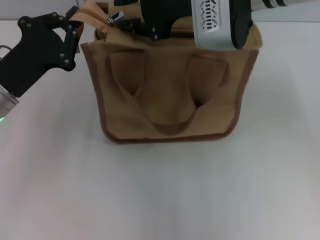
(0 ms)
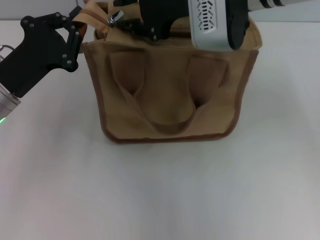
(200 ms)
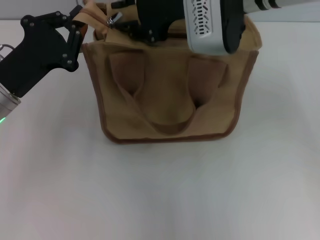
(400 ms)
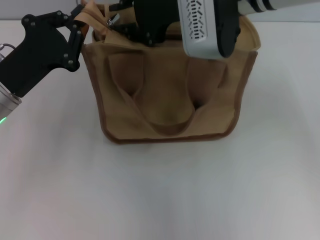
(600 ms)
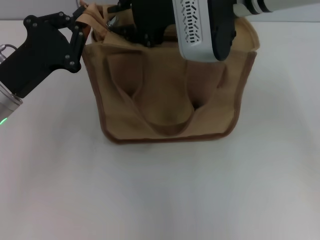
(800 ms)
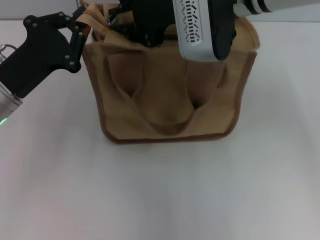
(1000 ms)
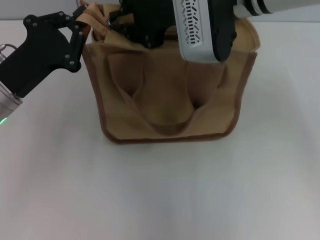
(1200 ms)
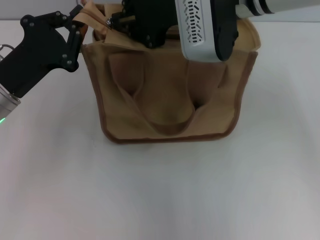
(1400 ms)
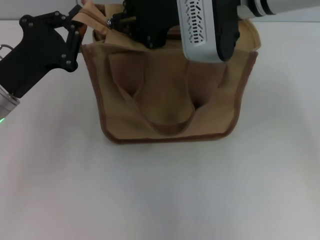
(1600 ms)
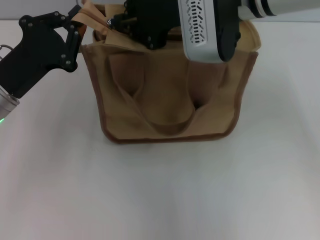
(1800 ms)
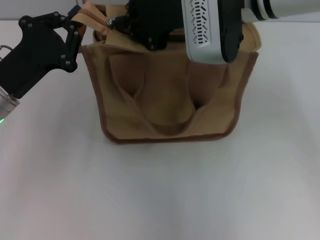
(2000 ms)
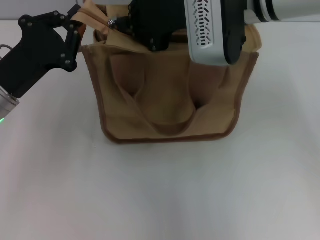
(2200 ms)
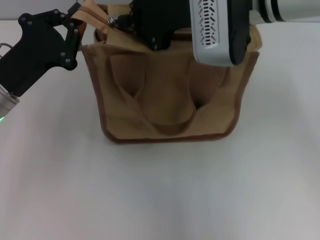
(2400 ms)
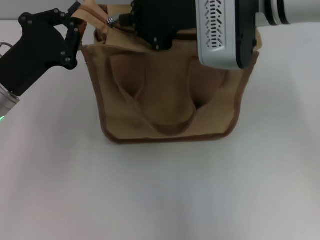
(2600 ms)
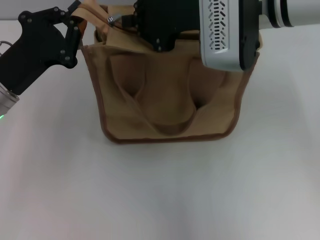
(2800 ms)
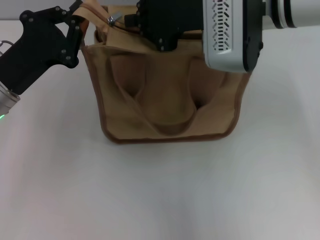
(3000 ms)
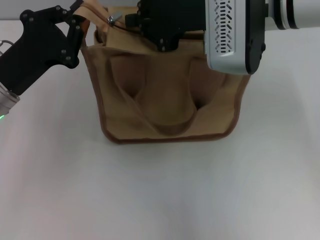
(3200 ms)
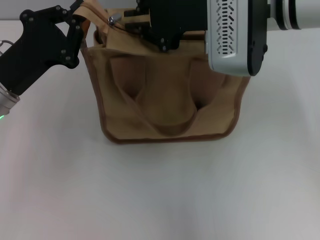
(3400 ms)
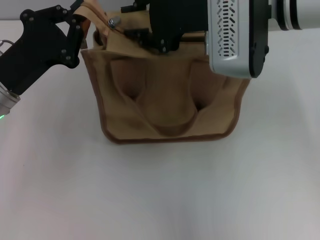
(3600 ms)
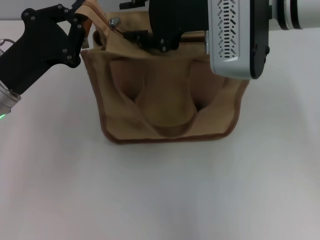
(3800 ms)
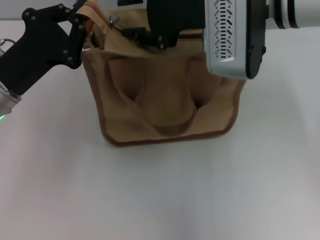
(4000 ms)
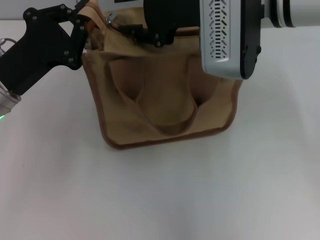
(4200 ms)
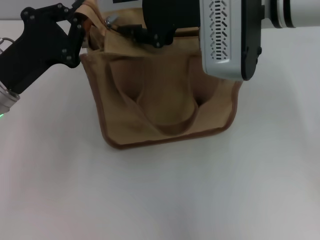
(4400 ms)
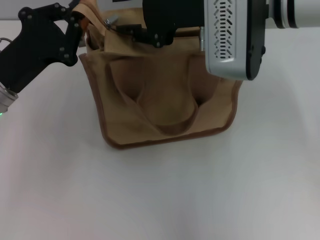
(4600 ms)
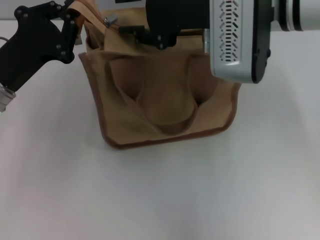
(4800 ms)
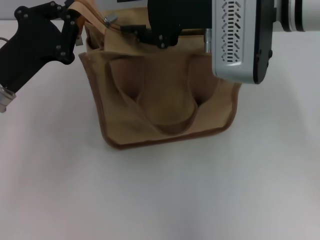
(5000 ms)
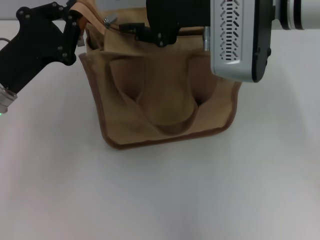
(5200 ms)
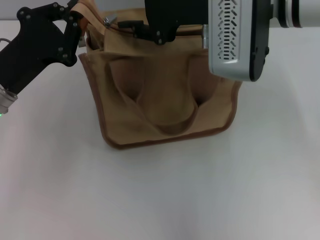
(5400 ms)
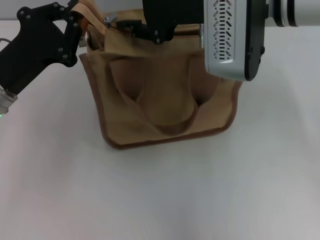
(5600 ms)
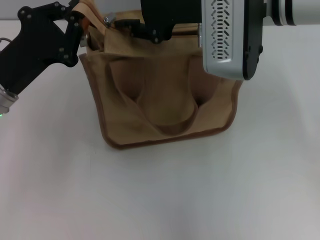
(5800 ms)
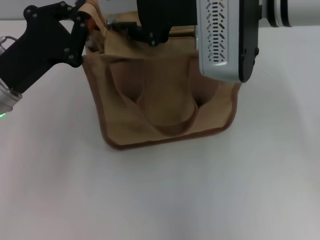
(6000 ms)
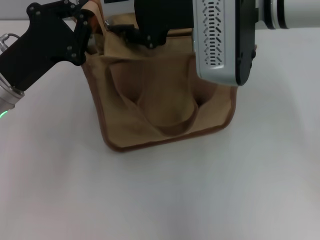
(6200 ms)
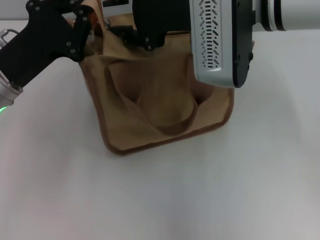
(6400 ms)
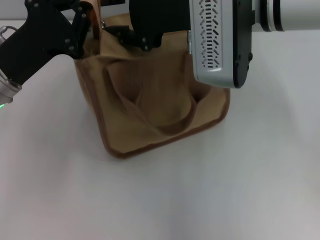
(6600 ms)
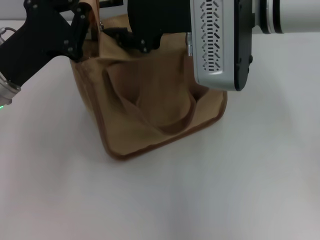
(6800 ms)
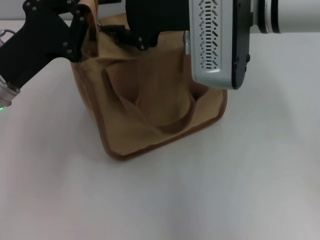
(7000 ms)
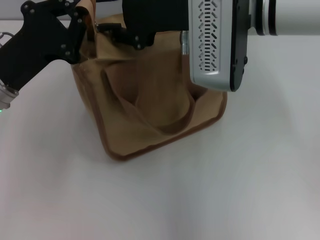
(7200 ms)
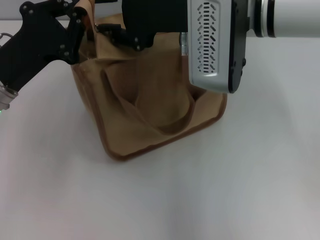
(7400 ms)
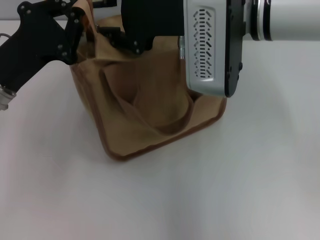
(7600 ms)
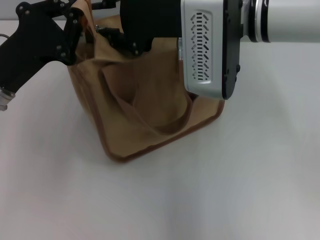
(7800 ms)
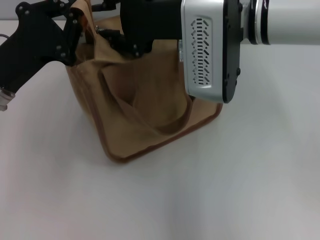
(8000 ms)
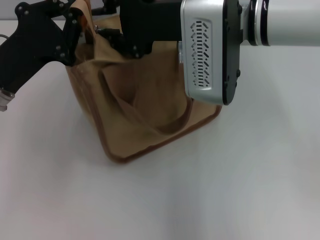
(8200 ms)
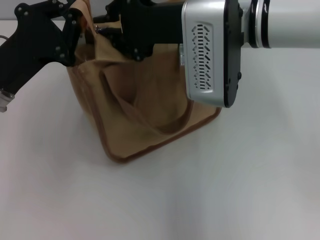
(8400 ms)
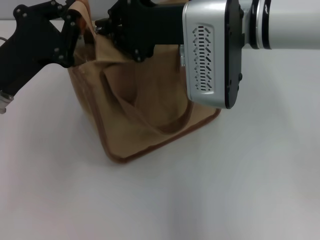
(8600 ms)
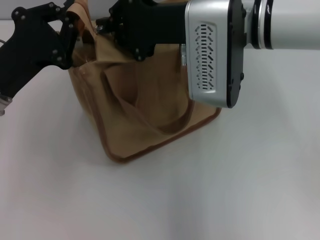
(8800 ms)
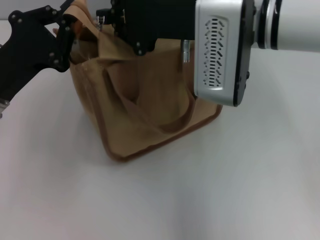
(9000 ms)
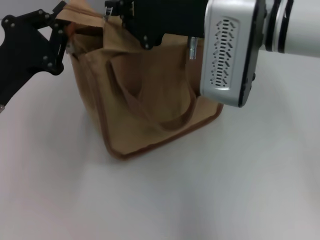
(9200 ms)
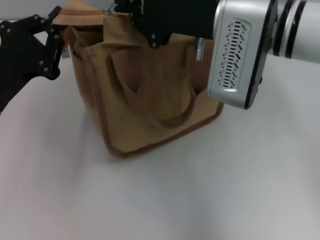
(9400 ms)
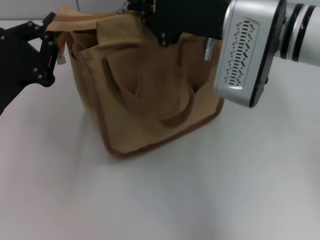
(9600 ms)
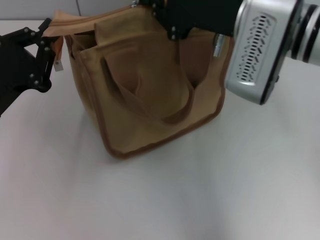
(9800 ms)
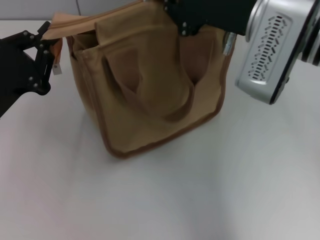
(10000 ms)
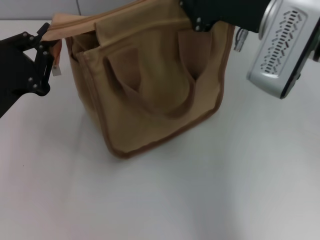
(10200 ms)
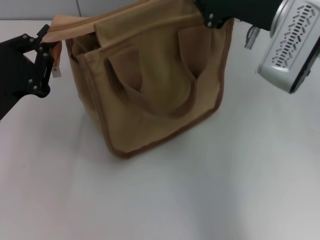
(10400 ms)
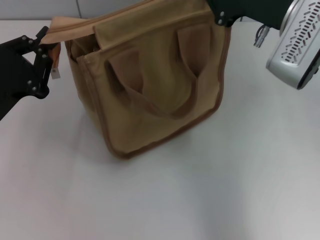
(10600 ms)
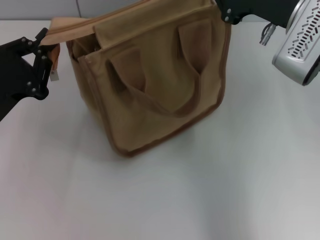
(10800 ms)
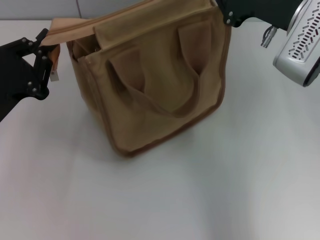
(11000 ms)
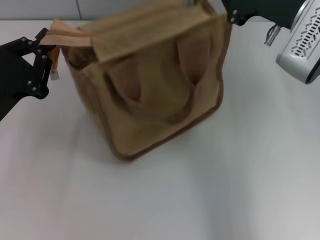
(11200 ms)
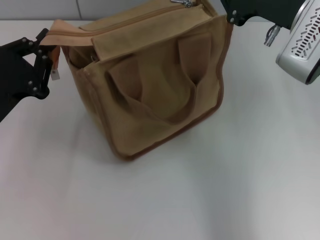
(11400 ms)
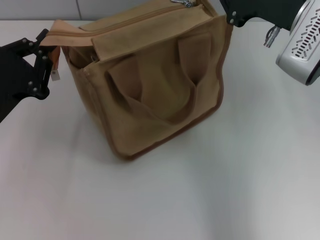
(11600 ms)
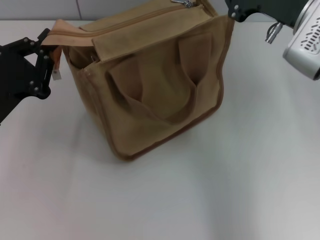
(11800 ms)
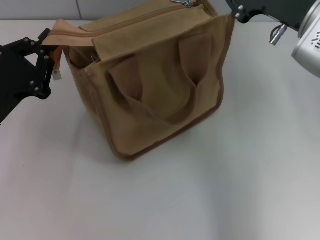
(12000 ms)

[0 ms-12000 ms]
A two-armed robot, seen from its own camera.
Step, 0 ms to 11000 ms: Pull up the zipper with your right hand.
0 ms to 3000 ms: There are only small adjustments of the grippers.
3000 ms to 4400 ms: The right gripper opens up.
4400 ms to 6000 ms: The two grippers keep their place.
6000 ms to 7600 ms: The grippers make only small movements.
7600 ms to 9000 ms: The right gripper closes up.
9000 ms to 10400 ms: The right gripper is displaced to the right by roughly 10 cm.
10400 ms to 12000 ms: The grippers stay close to where they were, moving slightly.

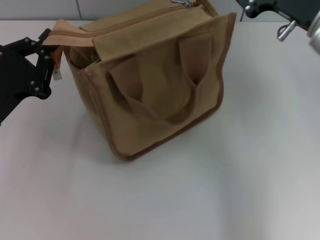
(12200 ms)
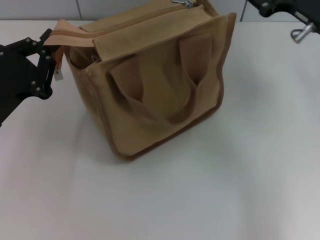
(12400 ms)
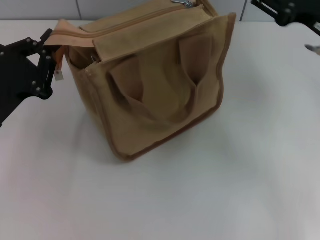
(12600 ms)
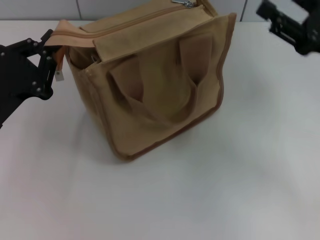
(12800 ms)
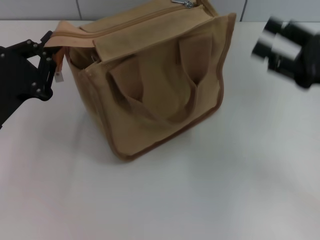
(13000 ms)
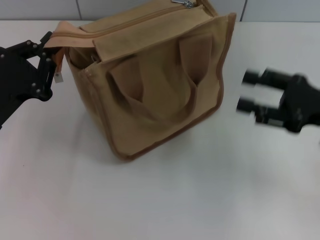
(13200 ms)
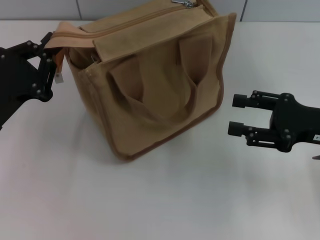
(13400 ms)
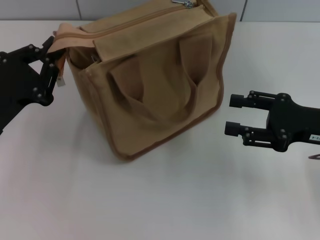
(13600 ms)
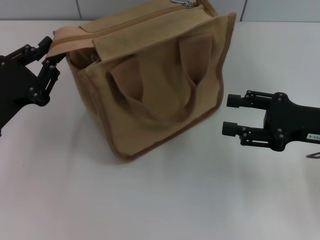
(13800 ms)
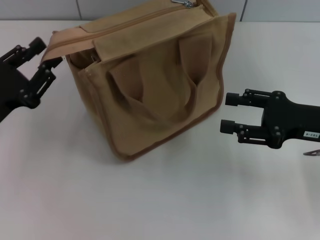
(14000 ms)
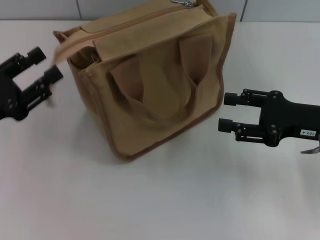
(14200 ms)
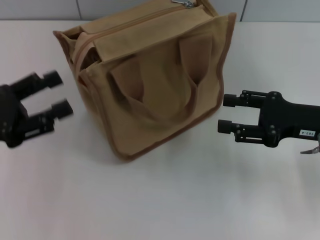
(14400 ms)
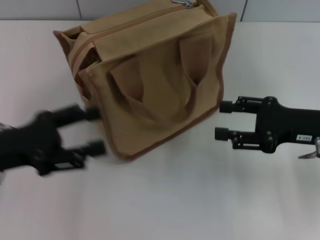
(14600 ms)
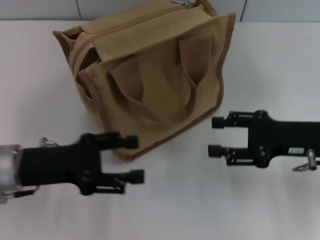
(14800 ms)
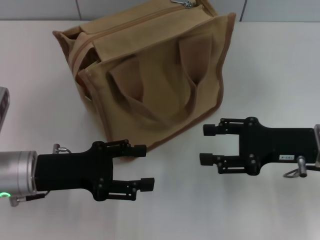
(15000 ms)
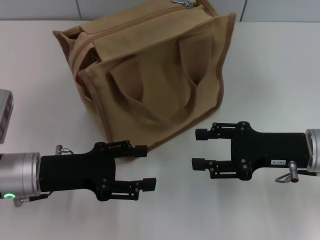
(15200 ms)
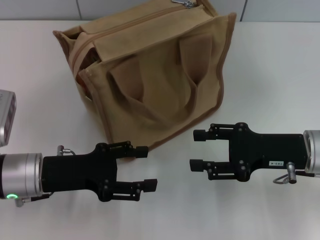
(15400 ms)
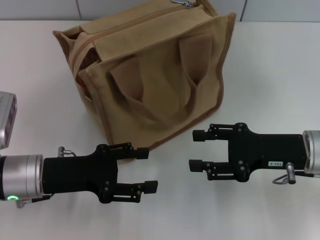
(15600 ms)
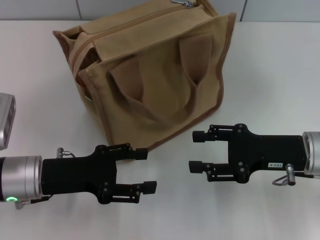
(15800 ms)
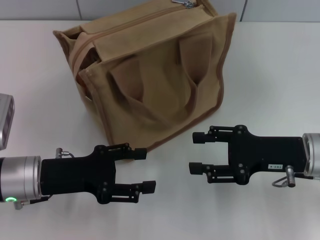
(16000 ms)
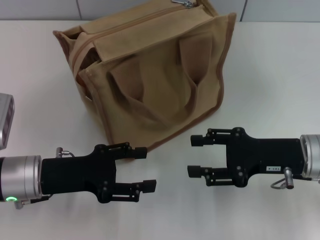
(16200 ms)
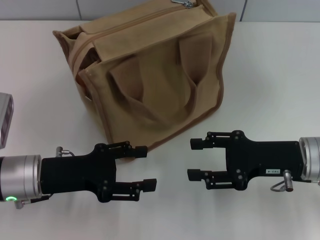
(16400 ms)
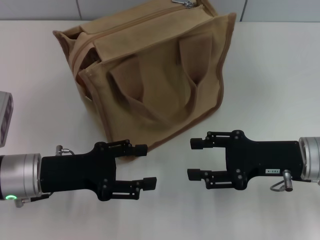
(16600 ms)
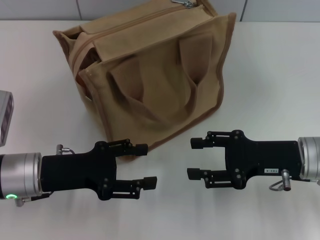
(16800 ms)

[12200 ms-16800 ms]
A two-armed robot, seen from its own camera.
Step, 12200 ms to 14200 ms: Grab the zipper with your left hand.
12200 ms to 13800 ms: The right gripper goes roughly 10 cm downward, backward and to the right, and opens its fingers.
13800 ms to 15200 ms: The left gripper is displaced to the right by about 5 cm, and opens up.
15200 ms to 16800 ms: Both grippers stay put.

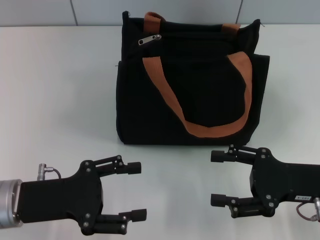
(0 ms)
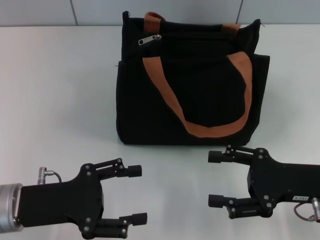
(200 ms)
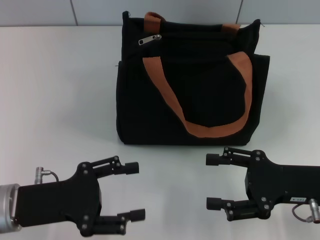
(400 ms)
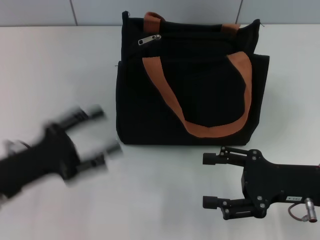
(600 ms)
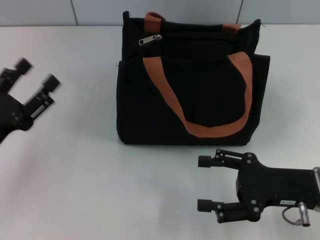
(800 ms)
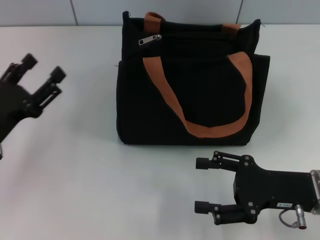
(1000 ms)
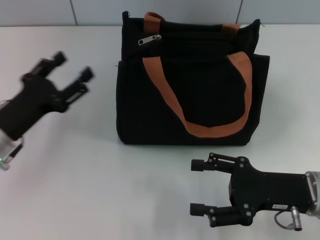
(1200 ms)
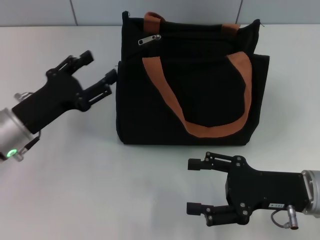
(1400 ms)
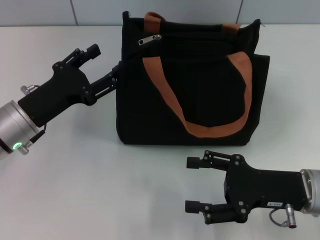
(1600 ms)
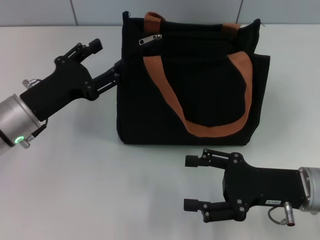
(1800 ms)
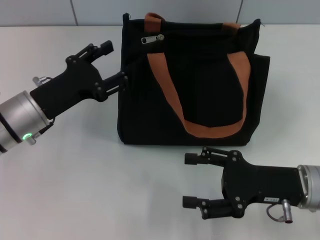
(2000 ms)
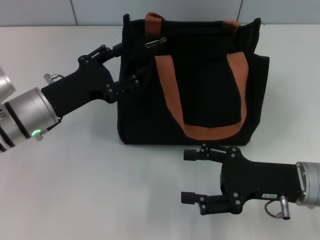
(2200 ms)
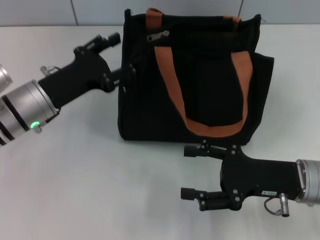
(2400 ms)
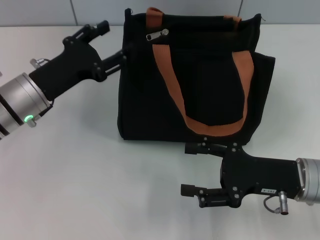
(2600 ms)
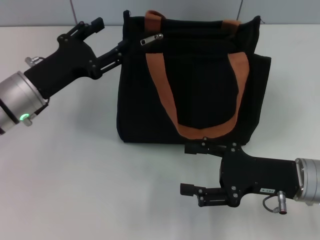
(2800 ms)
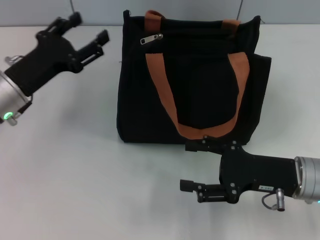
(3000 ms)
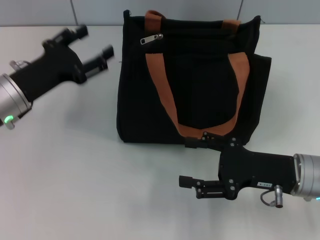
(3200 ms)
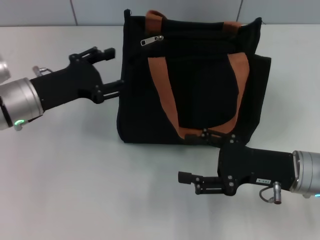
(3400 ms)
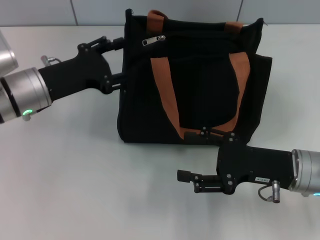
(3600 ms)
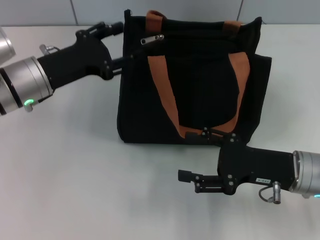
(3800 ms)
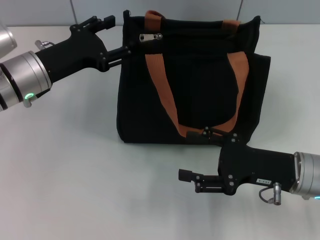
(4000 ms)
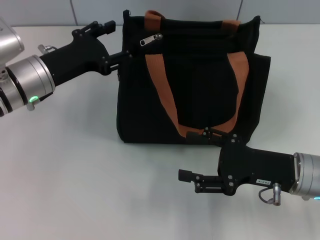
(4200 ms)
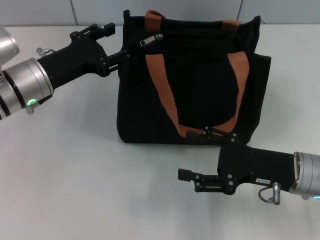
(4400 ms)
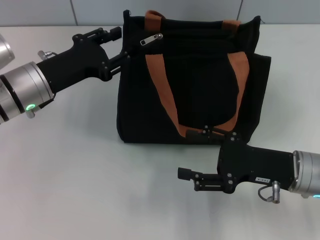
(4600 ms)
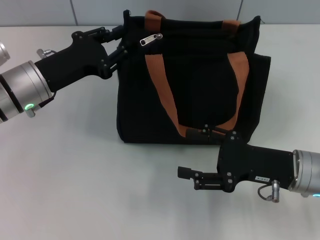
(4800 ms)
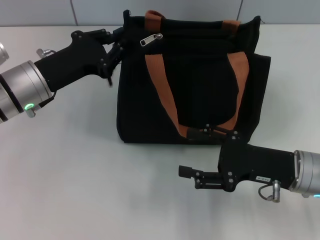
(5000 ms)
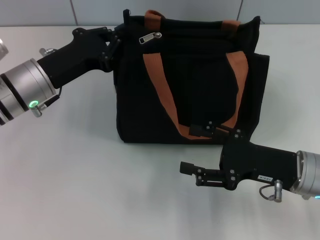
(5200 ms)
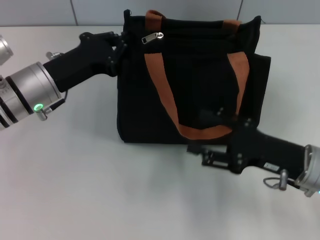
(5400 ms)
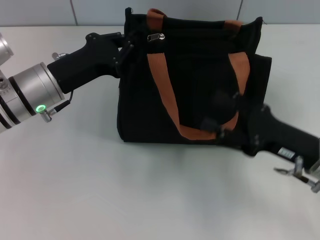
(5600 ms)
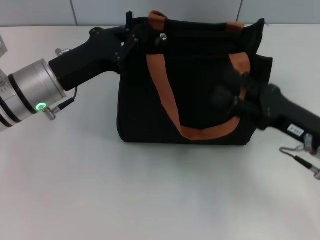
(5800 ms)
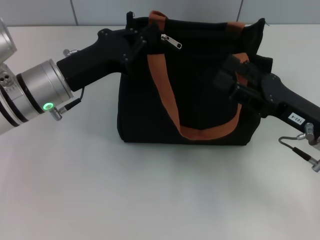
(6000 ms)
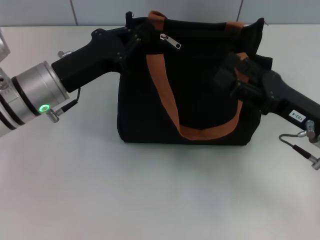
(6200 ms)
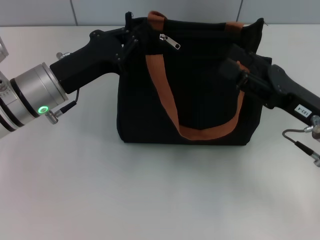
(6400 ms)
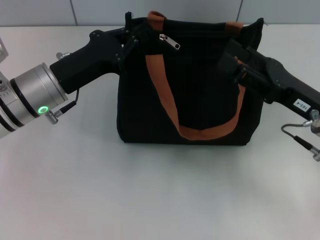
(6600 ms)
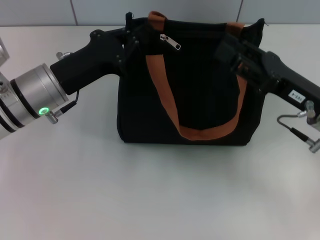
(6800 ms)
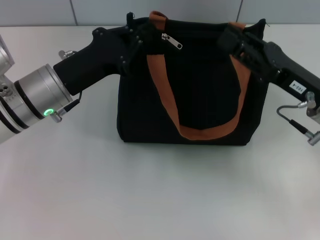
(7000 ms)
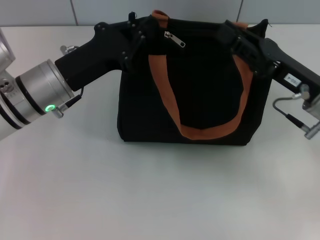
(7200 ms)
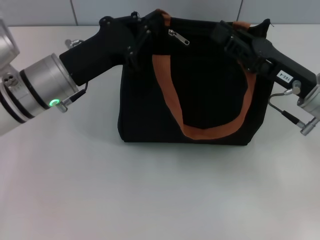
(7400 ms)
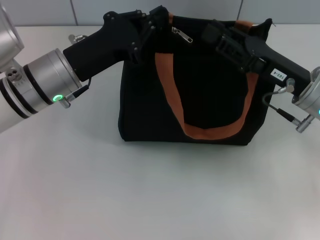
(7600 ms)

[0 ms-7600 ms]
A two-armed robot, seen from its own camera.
0 ms to 1600 ms: The left gripper shifts approximately 10 cm forward.
4600 ms to 6000 ms: The left gripper closes up.
6000 ms to 7600 ms: The right gripper shifts by roughly 5 cm, and closes up.
